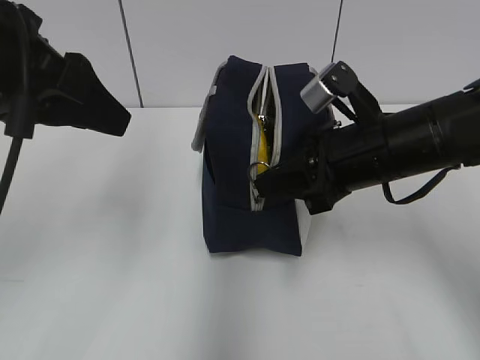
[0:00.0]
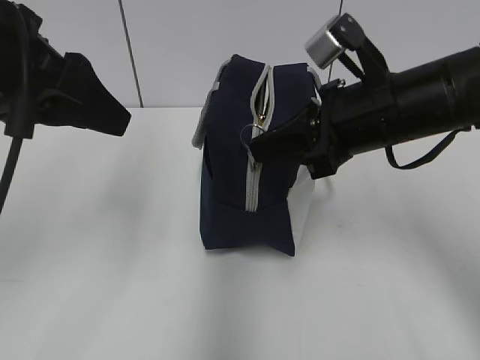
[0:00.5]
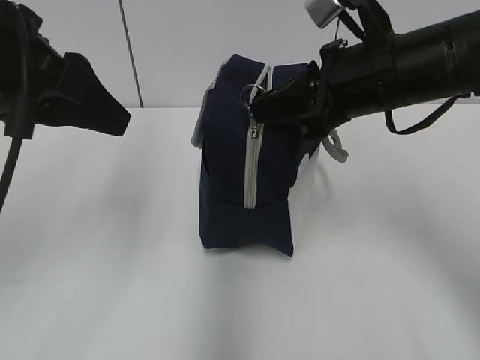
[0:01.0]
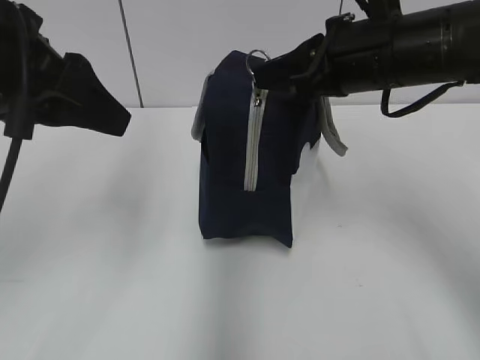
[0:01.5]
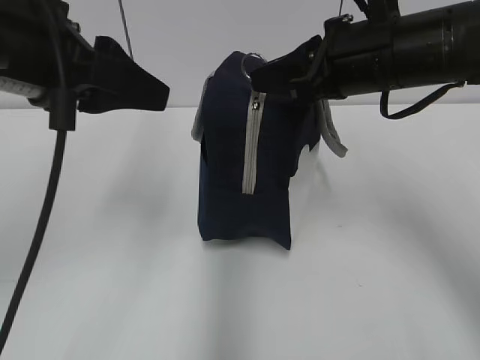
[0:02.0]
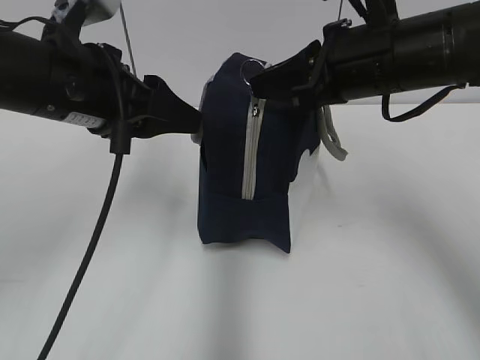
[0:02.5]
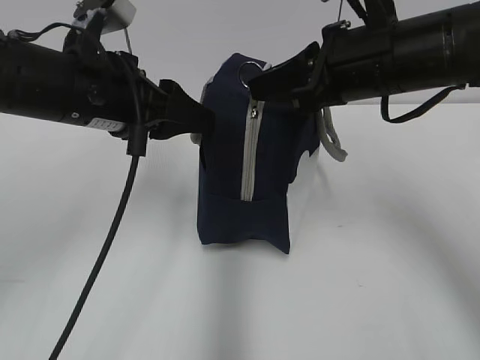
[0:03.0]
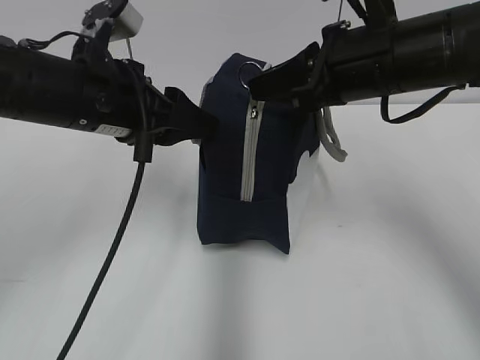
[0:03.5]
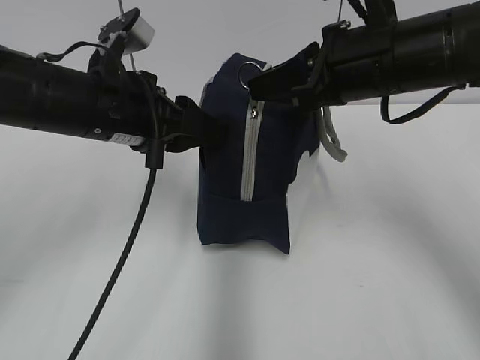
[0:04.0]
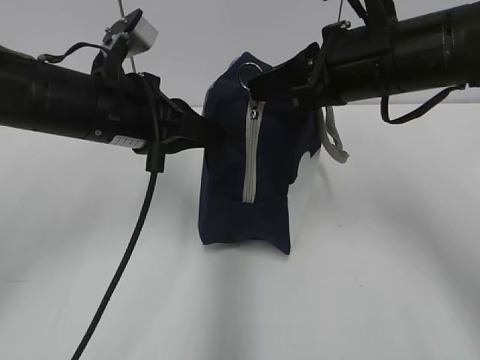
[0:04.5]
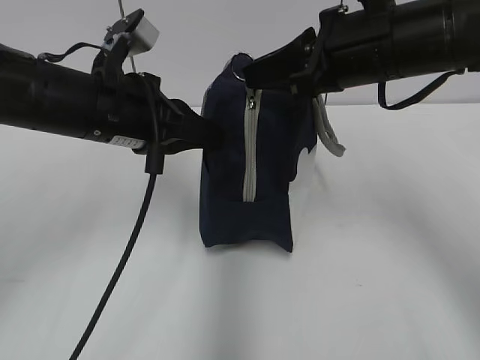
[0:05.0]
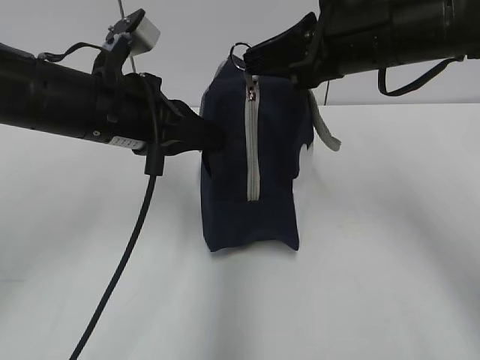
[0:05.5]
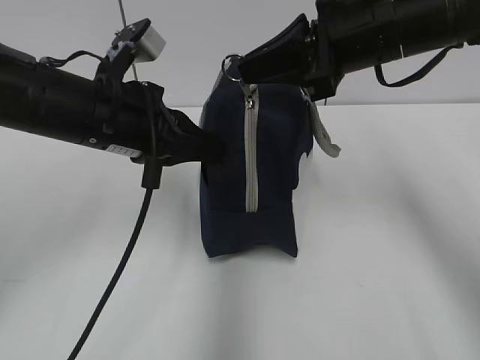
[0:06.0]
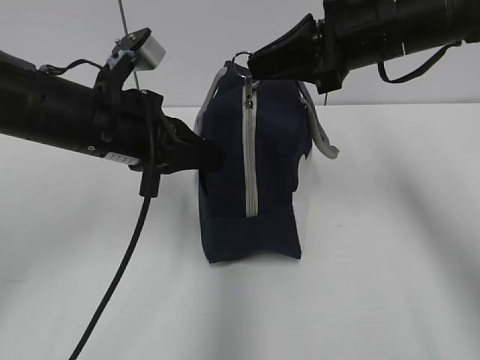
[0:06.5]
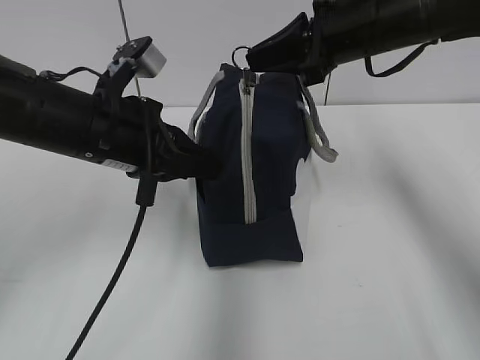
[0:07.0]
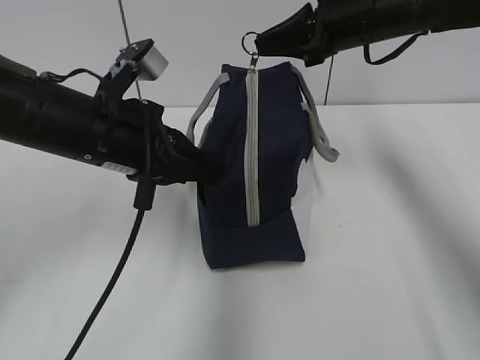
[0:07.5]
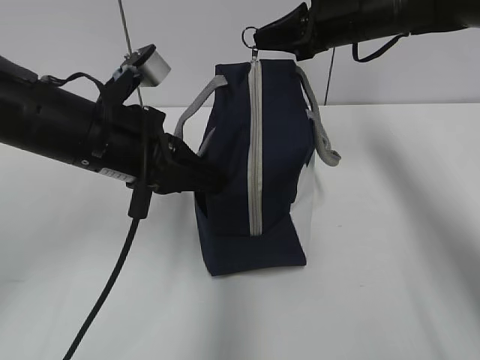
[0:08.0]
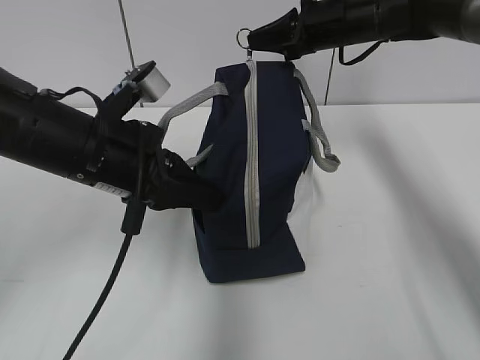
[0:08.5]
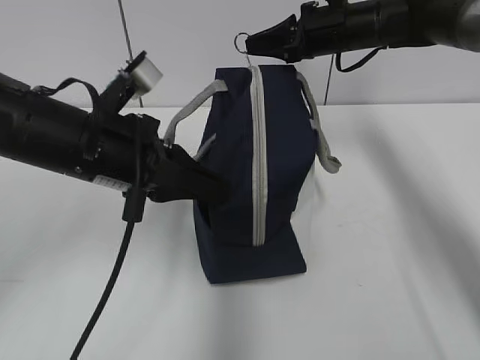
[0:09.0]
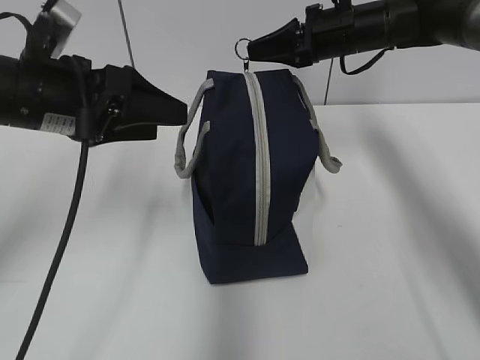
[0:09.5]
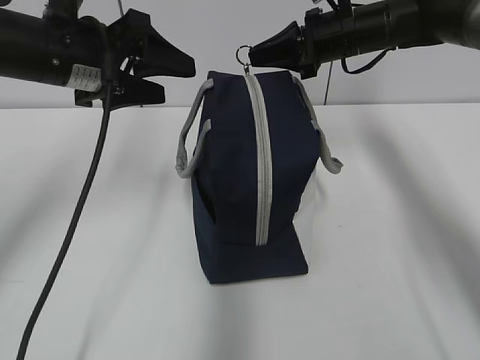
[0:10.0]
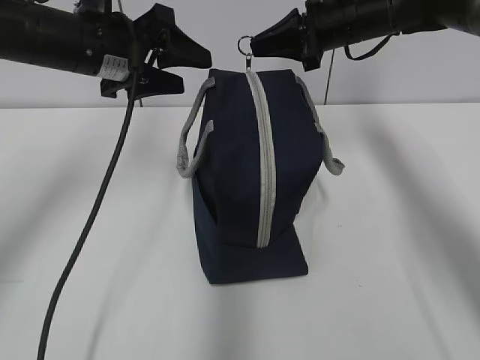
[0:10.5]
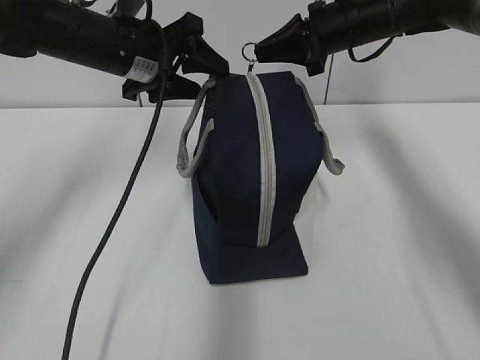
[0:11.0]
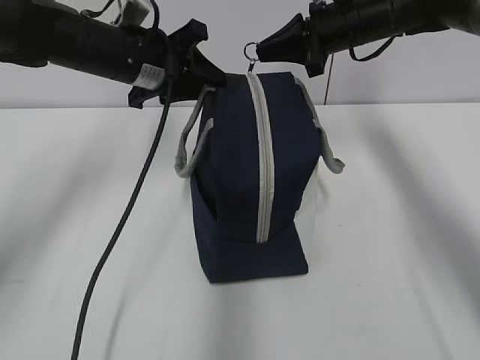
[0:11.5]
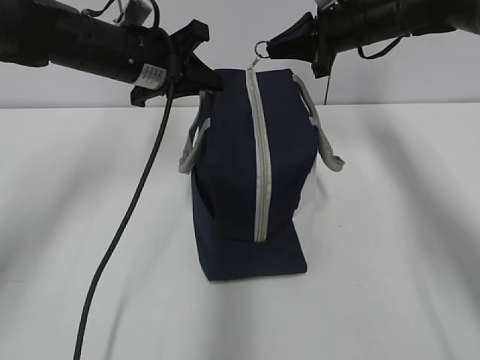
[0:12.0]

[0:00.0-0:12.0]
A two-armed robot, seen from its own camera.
0:00.0 to 0:02.0: The right gripper moves upward, some 10 cm.
0:02.0 to 0:04.0: The left gripper shifts about 10 cm downward and forward.
0:04.0 to 0:06.0: The left gripper closes its fingers.
0:06.0 to 0:08.0: The right gripper moves forward, roughly 15 cm.
0:08.0 to 0:10.0: The left gripper is displaced forward by approximately 5 cm, and opens its fingers.
0:10.0 to 0:12.0: The left gripper shifts roughly 5 cm forward, and closes.

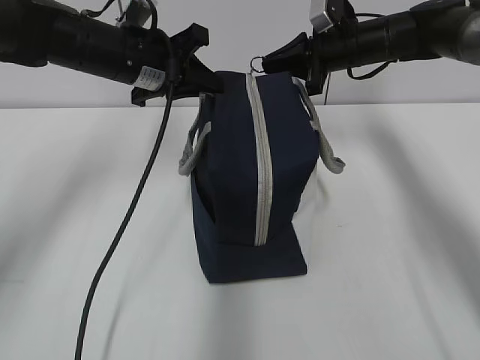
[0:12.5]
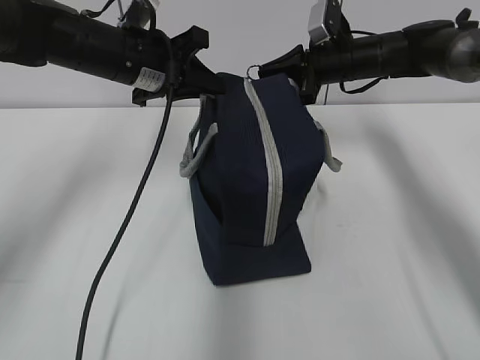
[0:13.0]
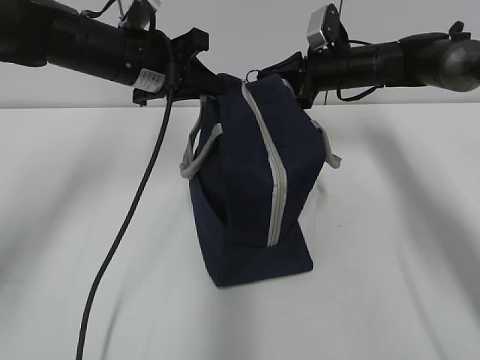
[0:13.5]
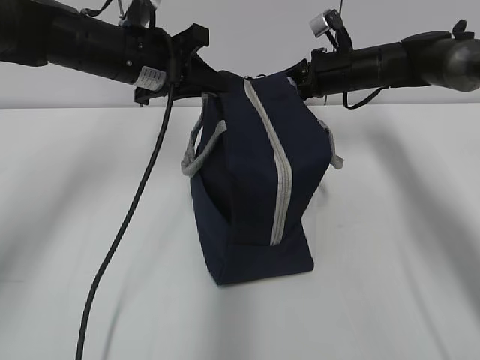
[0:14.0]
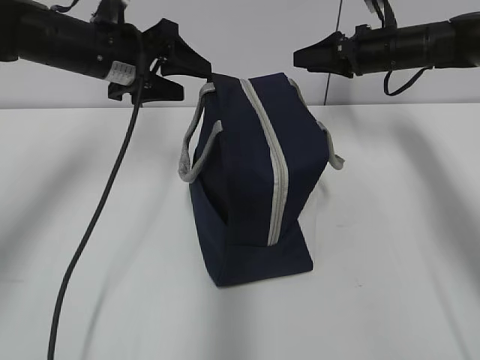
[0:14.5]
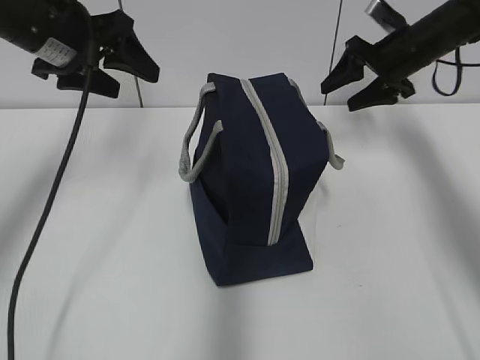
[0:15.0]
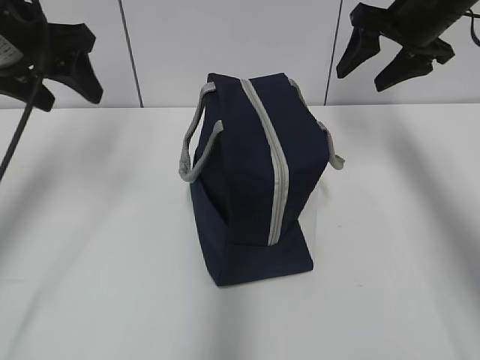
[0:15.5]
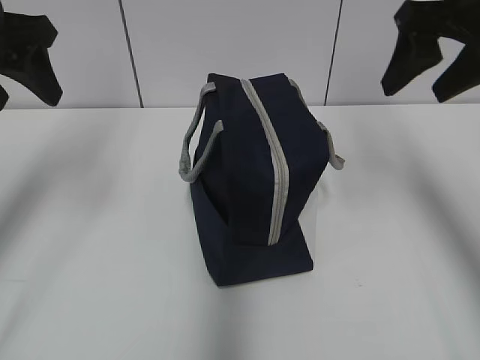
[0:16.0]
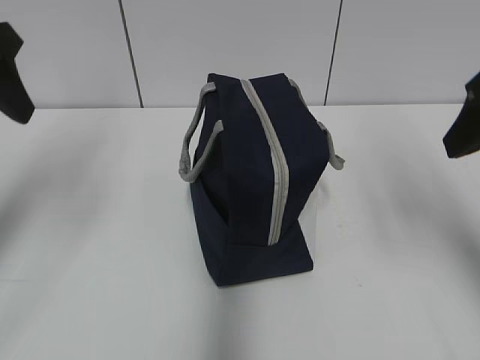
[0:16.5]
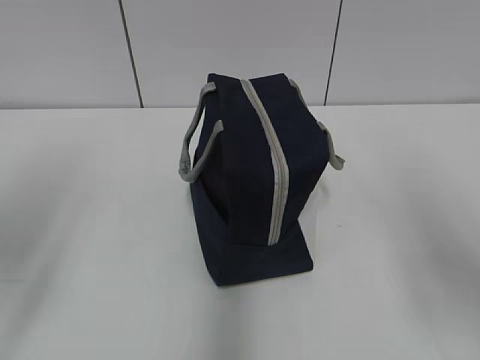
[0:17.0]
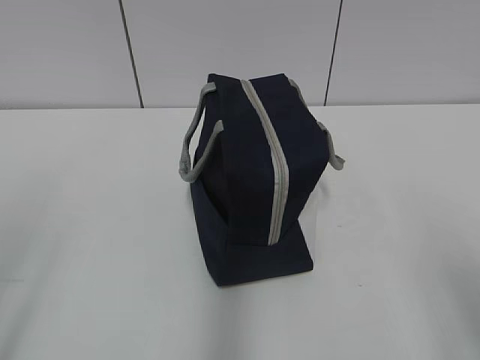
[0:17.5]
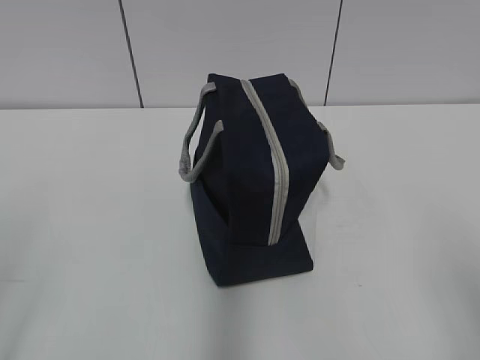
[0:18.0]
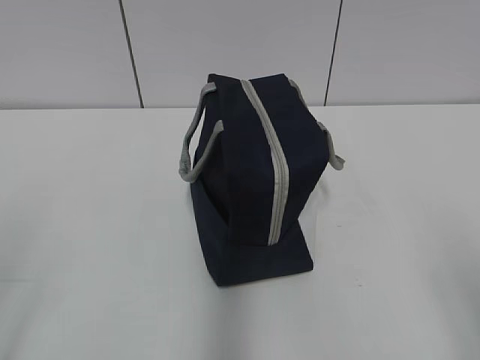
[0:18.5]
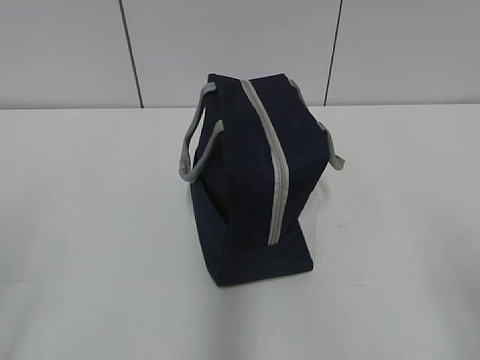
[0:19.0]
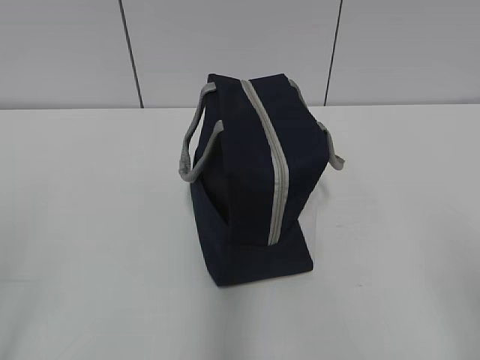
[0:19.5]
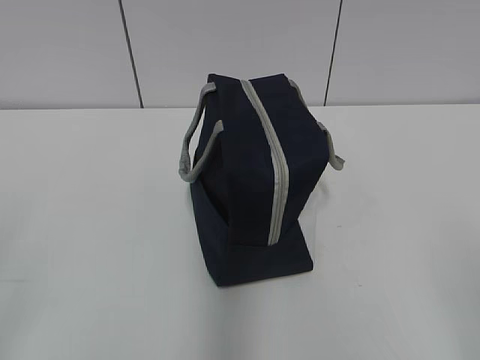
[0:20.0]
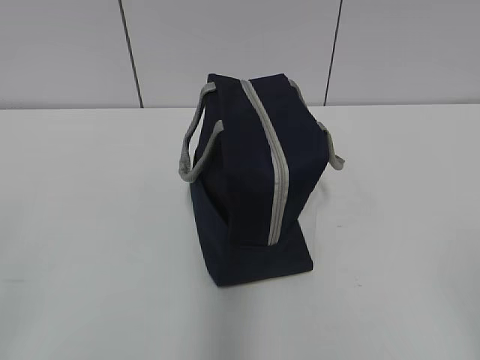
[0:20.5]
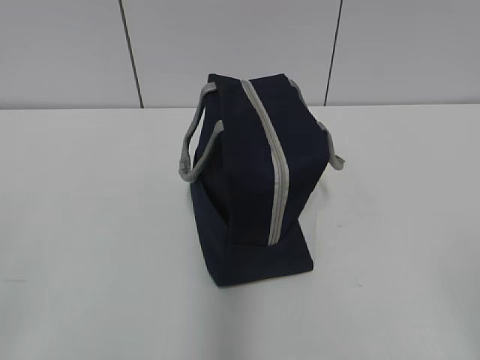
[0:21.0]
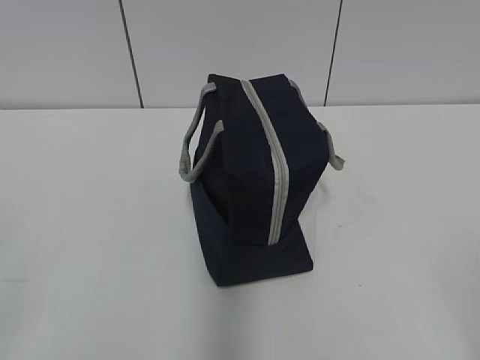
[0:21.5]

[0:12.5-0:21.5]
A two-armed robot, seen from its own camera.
0:12.5 to 0:14.5: The left gripper opens up; the right gripper travels to the right by some 5 cm, and opens its fingers.
0:14.5 to 0:17.0: The right gripper travels backward by roughly 35 cm; the left gripper shifts approximately 25 cm backward and to the left.
0:17.0 to 0:19.5: The left gripper travels backward and downward by about 15 cm. The right gripper moves backward, approximately 10 cm.
